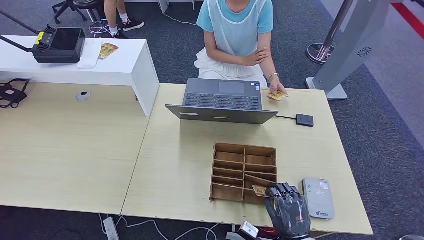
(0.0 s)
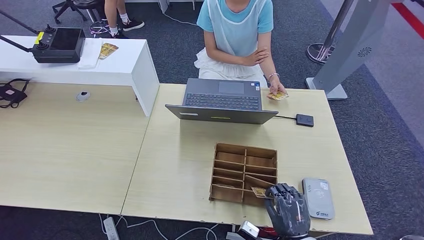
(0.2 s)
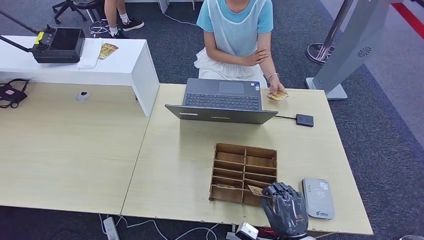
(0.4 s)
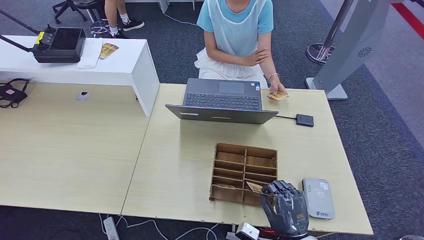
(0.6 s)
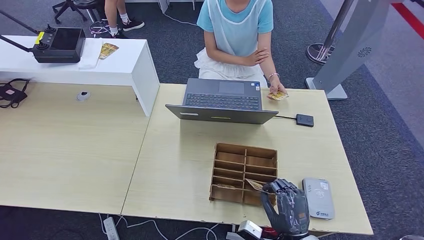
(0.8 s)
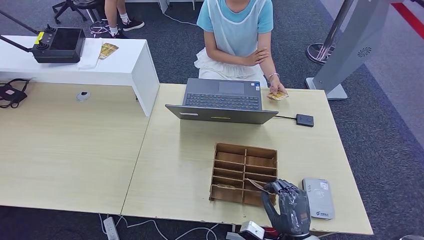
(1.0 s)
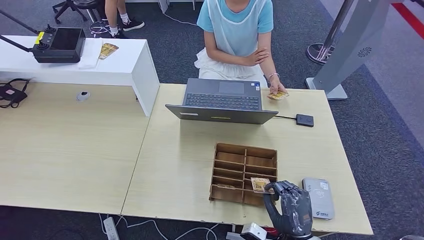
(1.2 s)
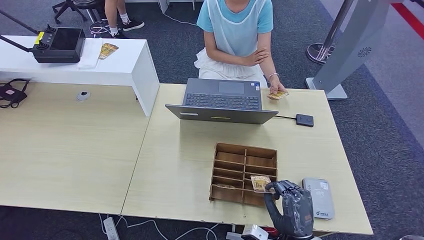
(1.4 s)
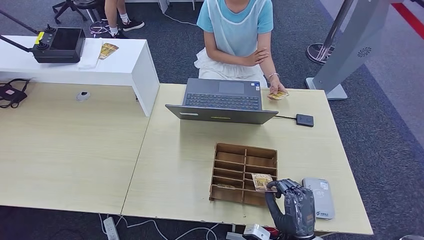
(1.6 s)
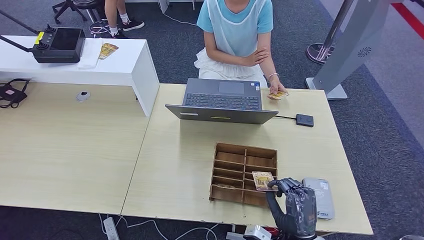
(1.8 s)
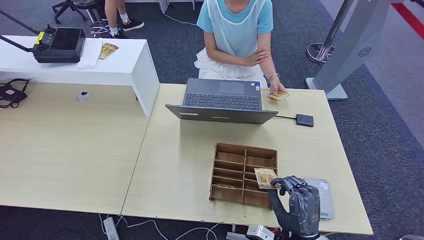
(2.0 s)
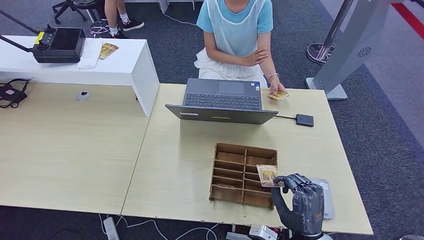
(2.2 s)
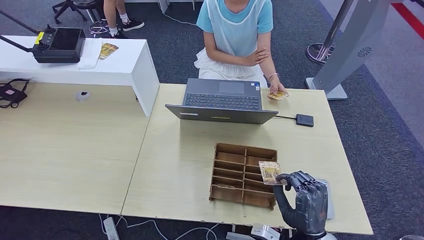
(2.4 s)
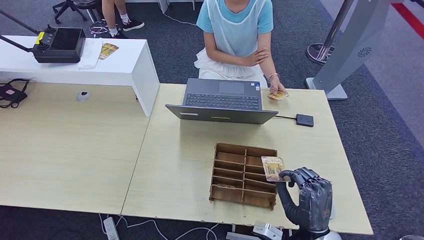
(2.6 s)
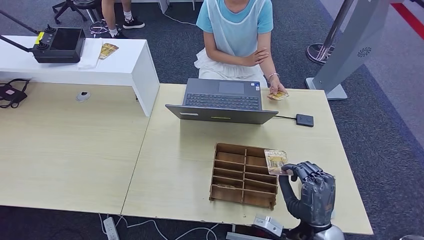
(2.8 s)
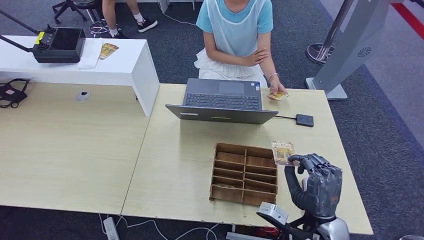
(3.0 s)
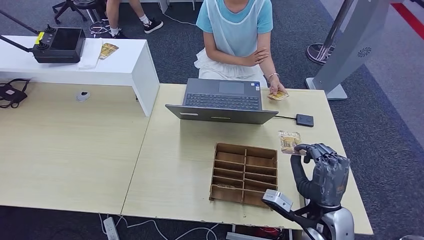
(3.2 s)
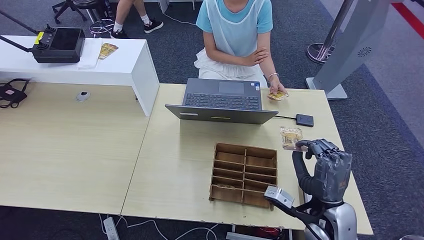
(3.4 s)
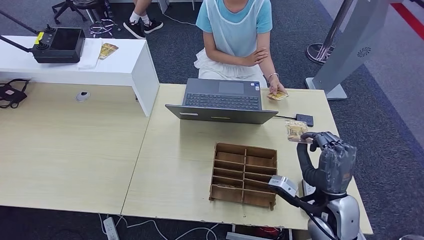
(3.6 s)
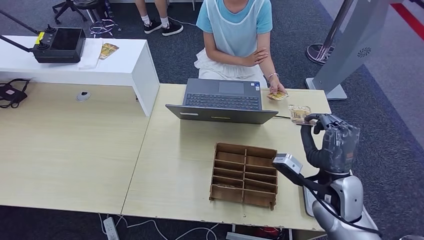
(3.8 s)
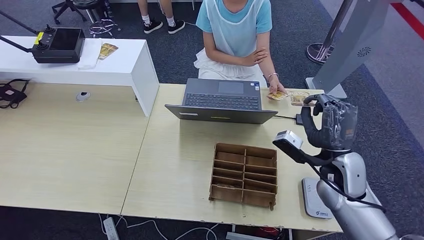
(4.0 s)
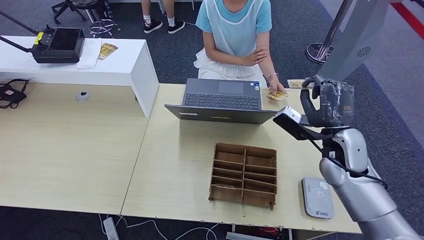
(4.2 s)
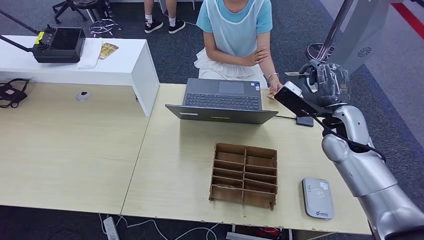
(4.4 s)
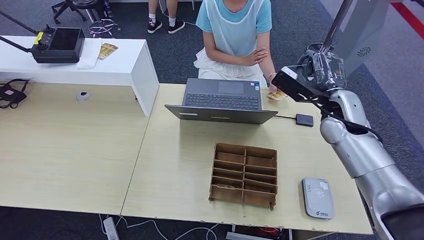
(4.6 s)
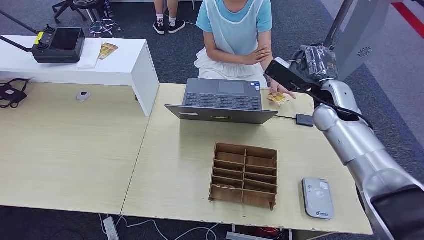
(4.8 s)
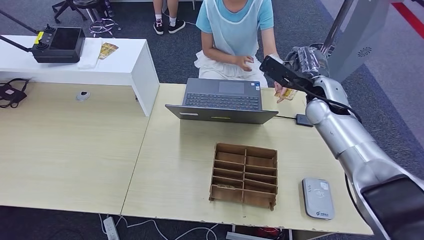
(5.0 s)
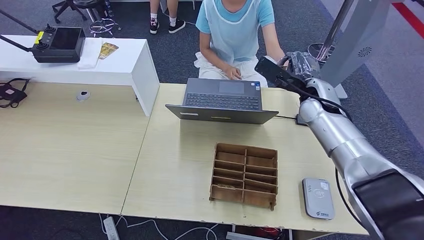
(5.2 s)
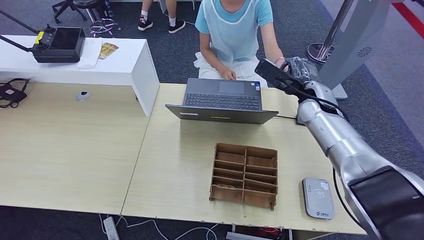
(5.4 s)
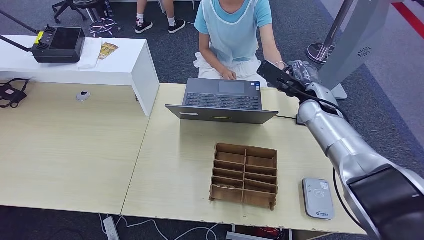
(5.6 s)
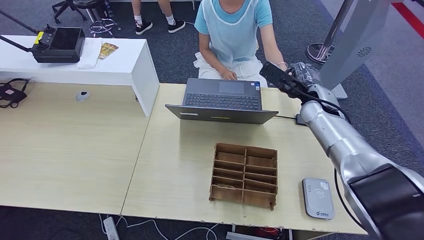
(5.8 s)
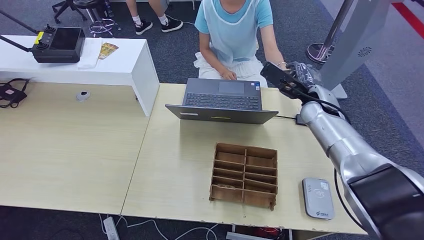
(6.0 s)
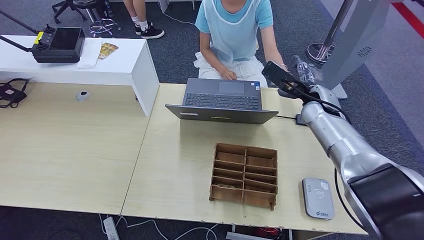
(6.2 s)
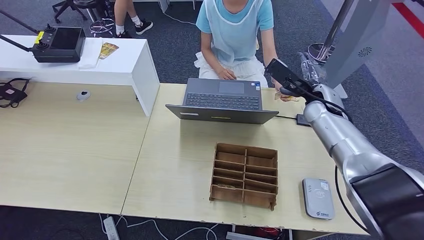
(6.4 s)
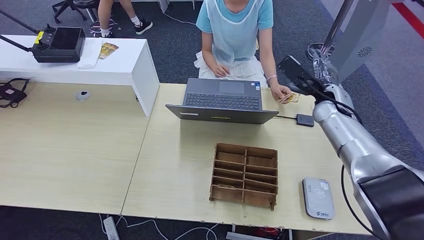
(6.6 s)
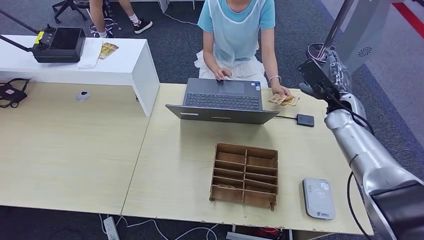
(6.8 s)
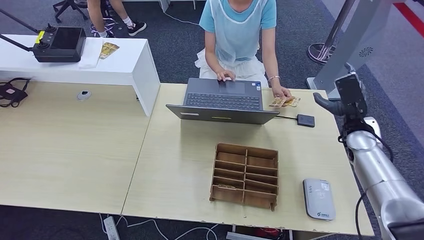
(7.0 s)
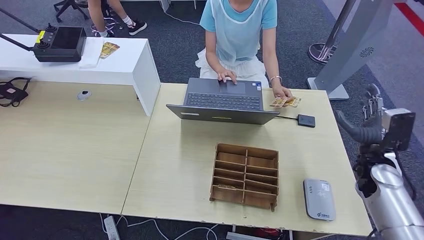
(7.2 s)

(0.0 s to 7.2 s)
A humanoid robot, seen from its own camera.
Step, 0.0 s - 1.8 s: Pick up the room key from the key card box.
Step, 2.0 s - 7.2 s: Hand the room key to the person.
0.0 s - 1.4 s: The hands move only a little.
1.4 s - 2.8 s: The right hand goes some 5 cm upward.
2.8 s - 4.4 s: The right hand moves forward and upward, roughly 25 cm.
4.4 s - 5.8 s: The right hand travels forward by some 10 cm.

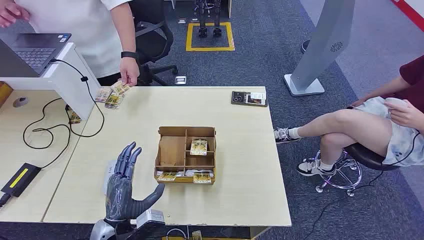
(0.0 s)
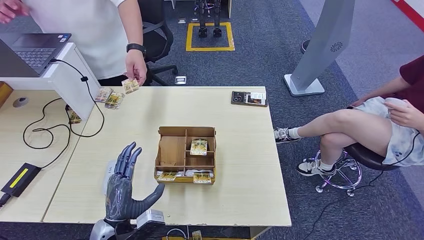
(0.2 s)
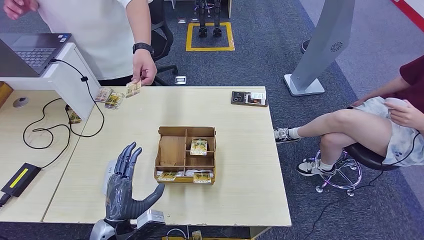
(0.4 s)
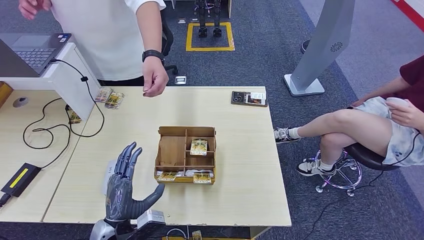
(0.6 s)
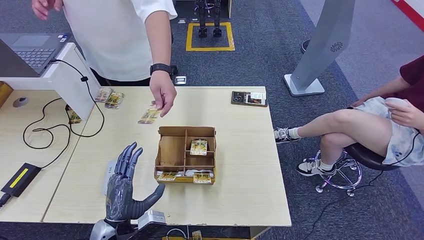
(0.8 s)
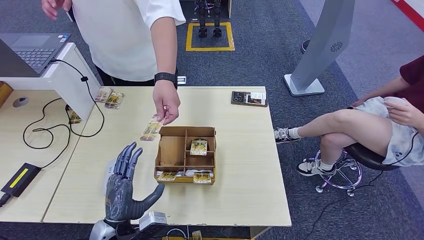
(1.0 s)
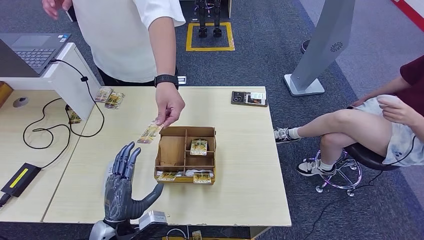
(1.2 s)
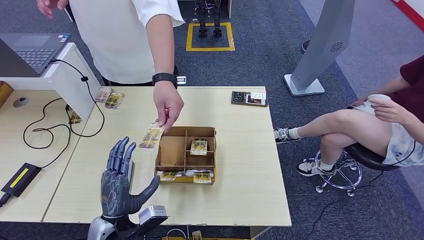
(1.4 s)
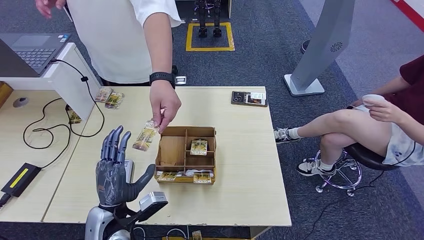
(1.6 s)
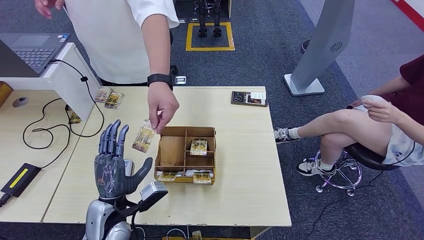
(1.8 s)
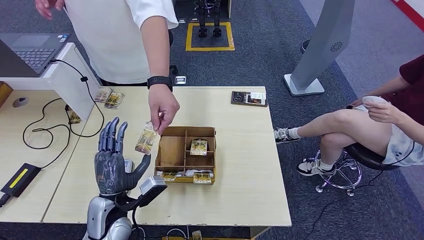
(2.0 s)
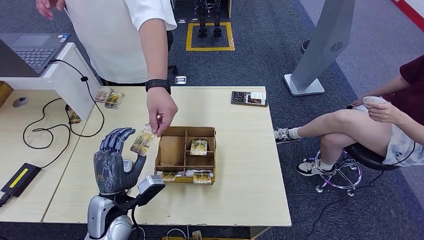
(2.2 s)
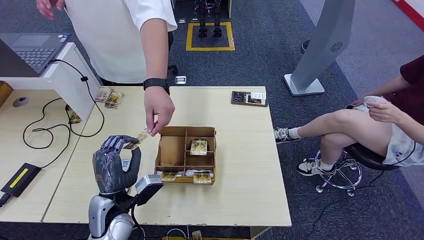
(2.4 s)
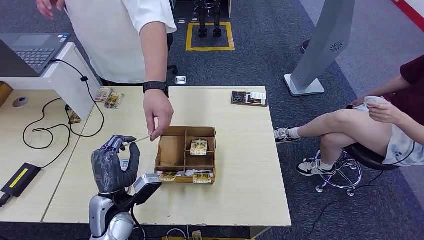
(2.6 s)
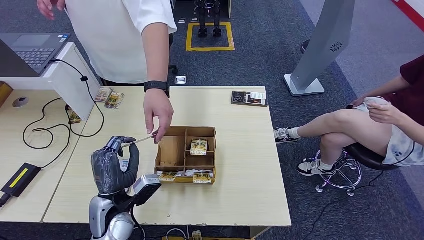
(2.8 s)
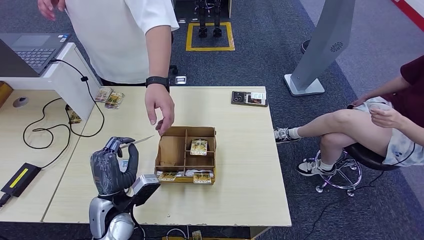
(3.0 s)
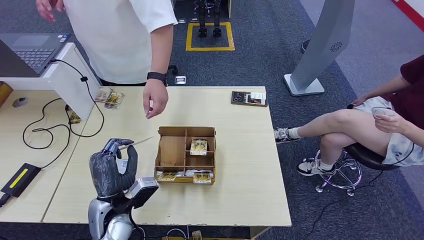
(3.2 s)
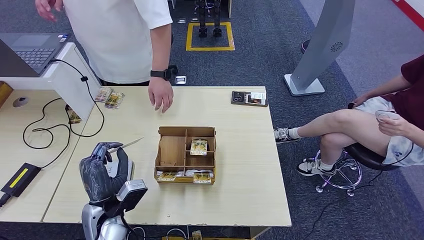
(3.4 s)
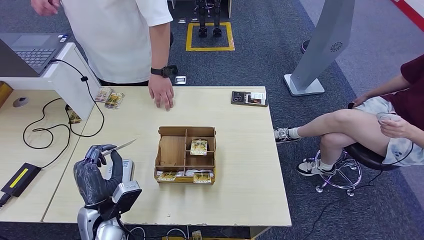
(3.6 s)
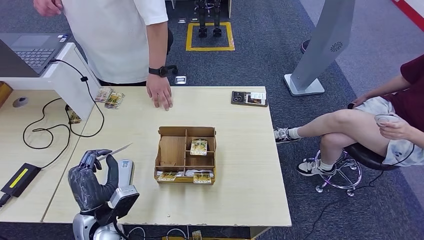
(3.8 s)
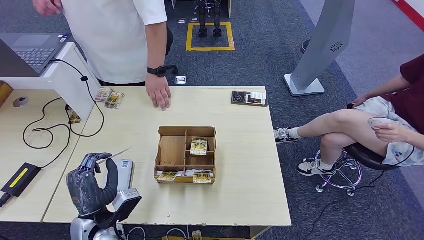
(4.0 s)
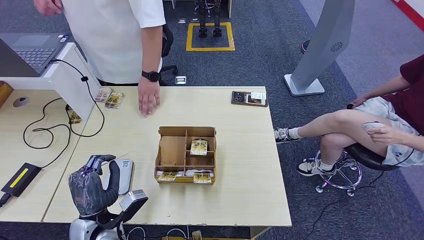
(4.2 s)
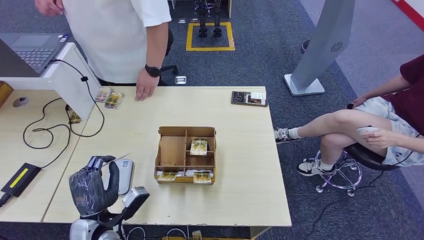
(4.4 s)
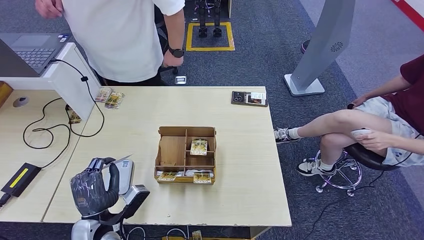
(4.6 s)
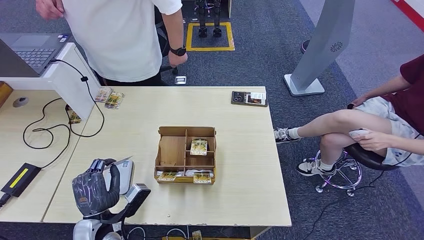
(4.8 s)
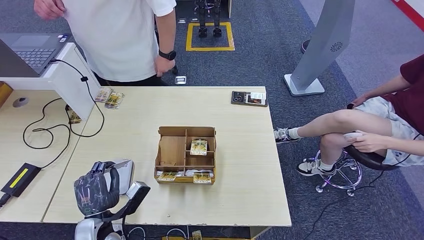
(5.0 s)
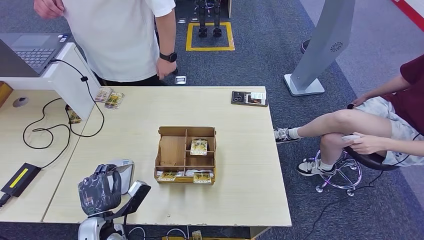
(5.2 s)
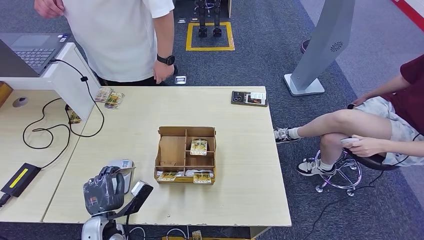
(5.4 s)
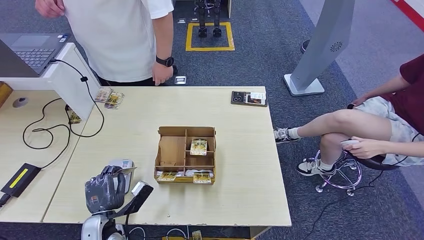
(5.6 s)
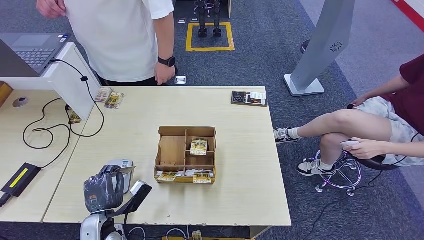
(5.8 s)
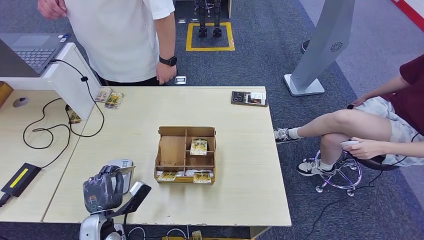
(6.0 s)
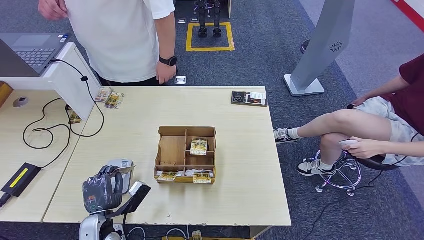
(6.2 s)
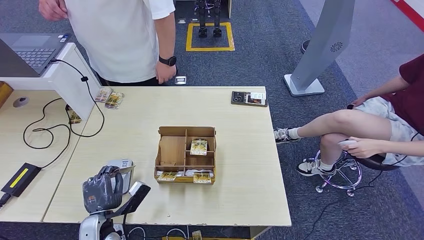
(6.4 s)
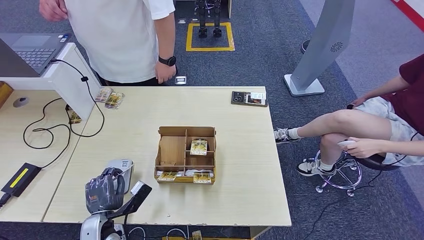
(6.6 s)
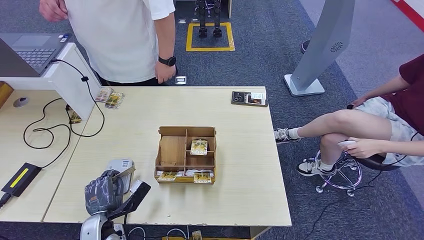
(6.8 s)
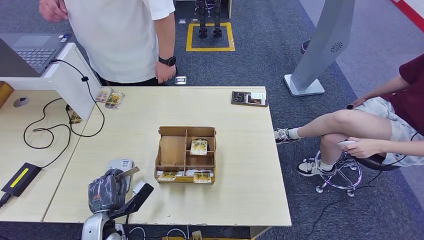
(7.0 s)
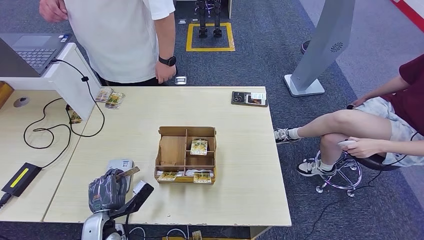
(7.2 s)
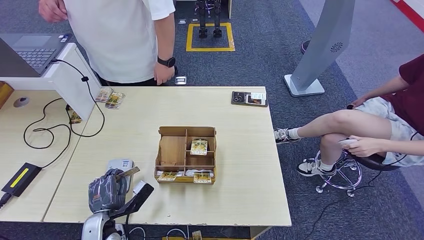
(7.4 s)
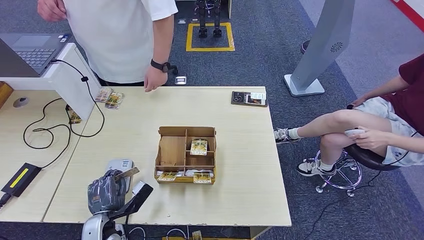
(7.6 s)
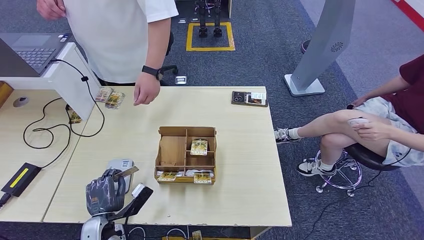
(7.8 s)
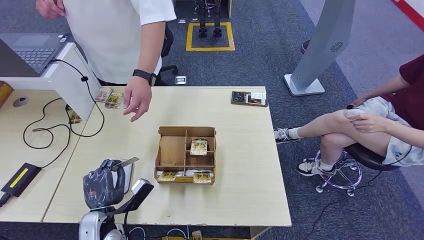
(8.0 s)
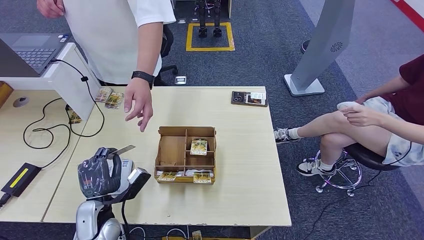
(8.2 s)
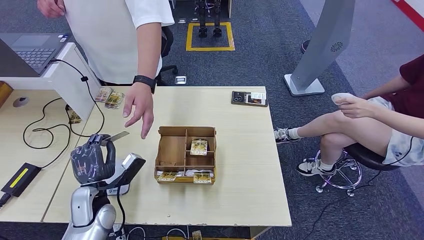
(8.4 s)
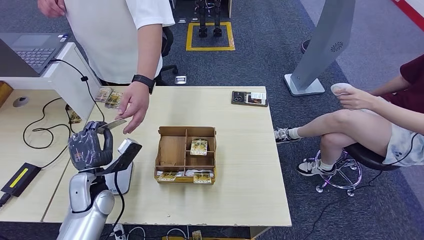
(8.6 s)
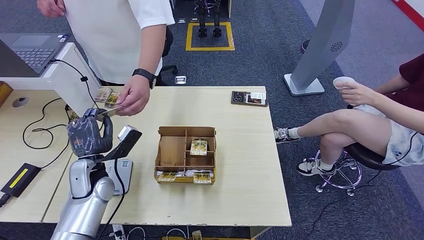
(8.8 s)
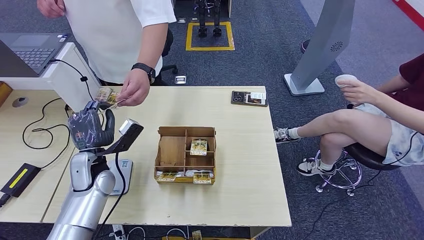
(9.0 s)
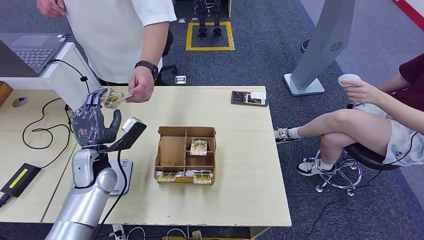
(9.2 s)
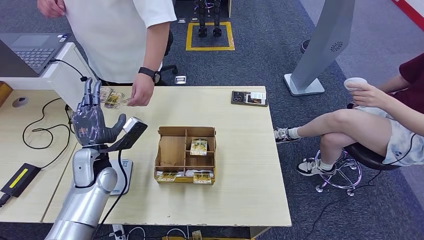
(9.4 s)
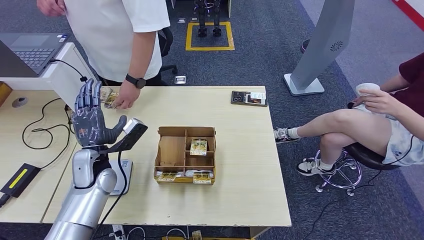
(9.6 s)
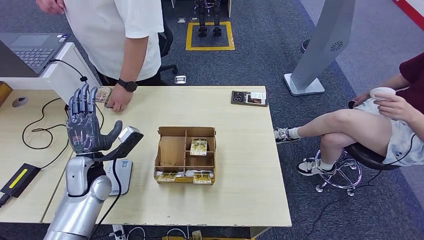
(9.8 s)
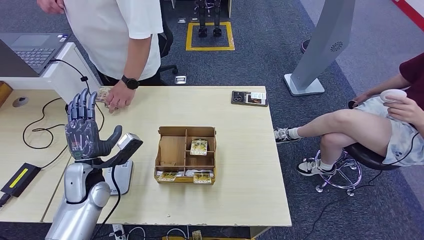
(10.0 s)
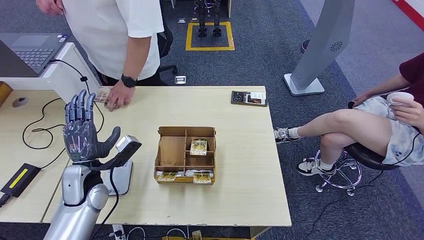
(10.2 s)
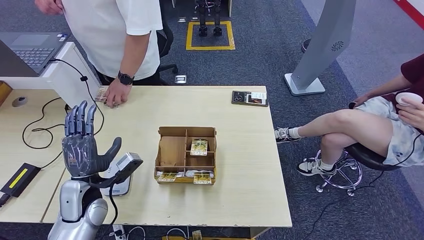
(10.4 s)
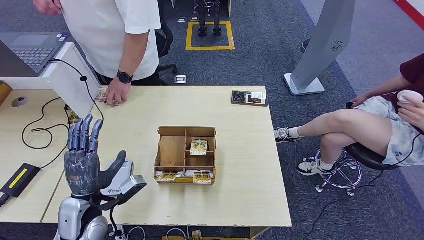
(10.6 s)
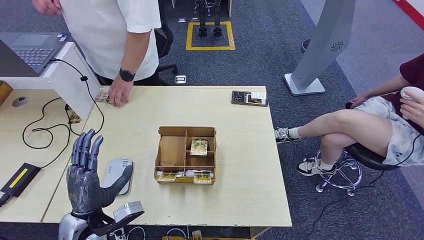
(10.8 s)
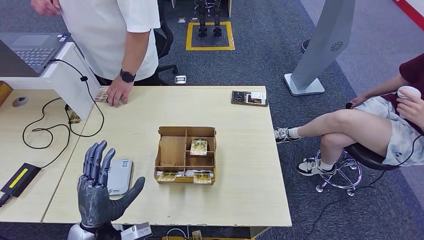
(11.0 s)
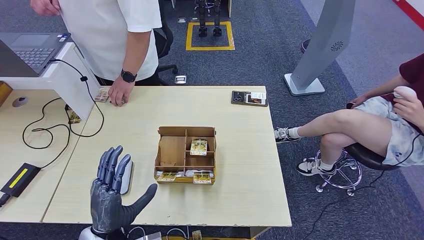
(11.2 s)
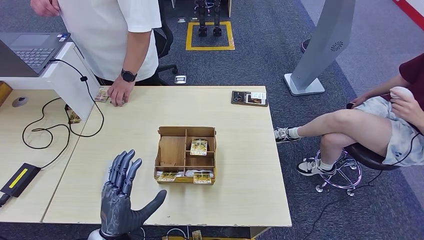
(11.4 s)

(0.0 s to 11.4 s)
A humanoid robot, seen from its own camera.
Step, 0.0 s - 3.2 s: Take the ID card from the person's hand.
Step, 3.4 s - 7.8 s: Place the ID card on the card reader.
Step, 8.0 s - 11.2 s: Hand the ID card to the person.
1.4 s - 2.8 s: The left hand travels forward by roughly 5 cm.
2.8 s - 4.2 s: The left hand moves about 5 cm.
4.2 s - 5.6 s: The left hand goes roughly 5 cm downward.
5.6 s - 7.2 s: The hands stay close to where they were, moving slightly.
7.2 s - 8.6 s: The left hand shifts some 15 cm upward and forward.
10.0 s - 11.4 s: The left hand shifts roughly 15 cm backward and to the right.
